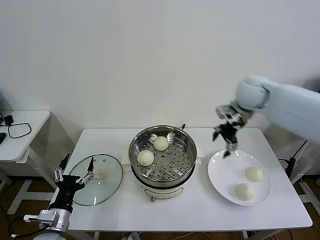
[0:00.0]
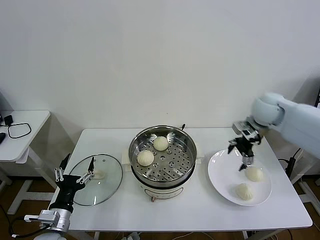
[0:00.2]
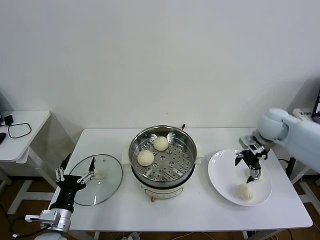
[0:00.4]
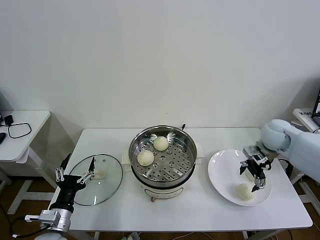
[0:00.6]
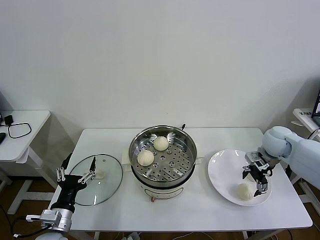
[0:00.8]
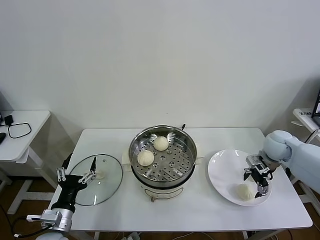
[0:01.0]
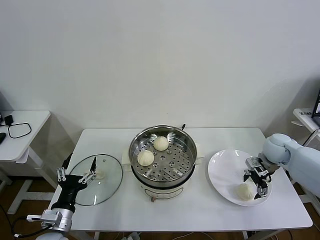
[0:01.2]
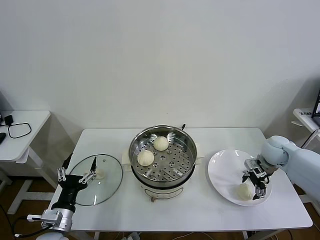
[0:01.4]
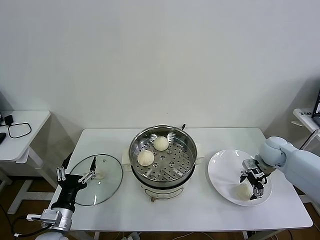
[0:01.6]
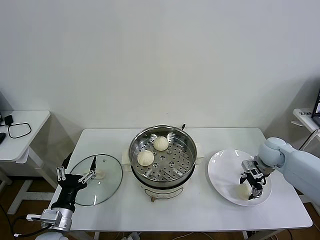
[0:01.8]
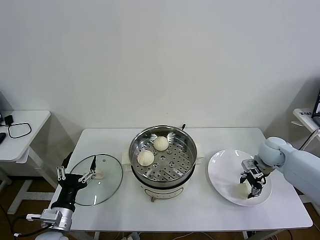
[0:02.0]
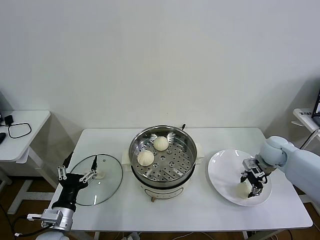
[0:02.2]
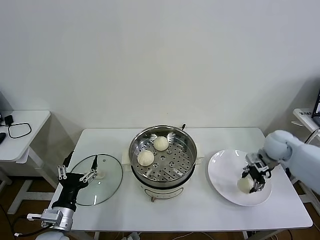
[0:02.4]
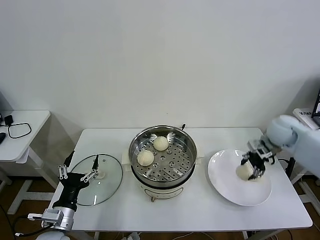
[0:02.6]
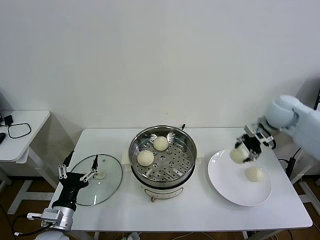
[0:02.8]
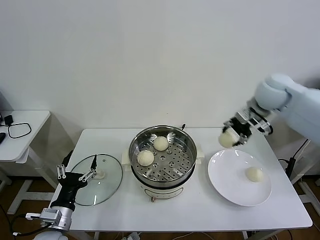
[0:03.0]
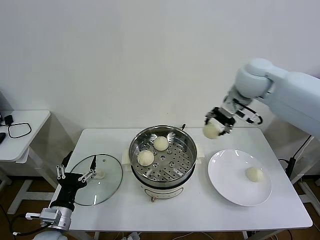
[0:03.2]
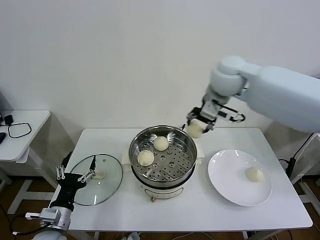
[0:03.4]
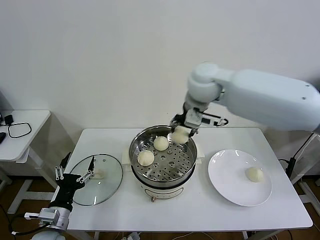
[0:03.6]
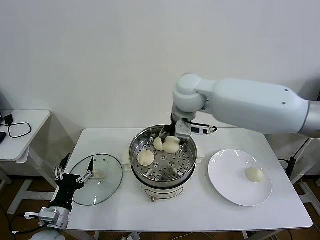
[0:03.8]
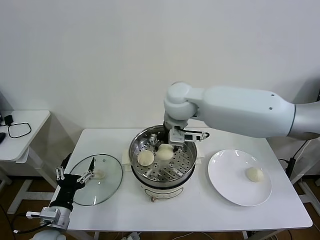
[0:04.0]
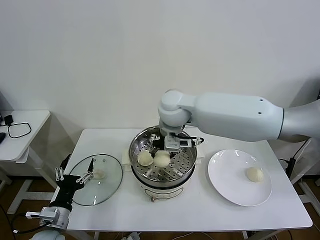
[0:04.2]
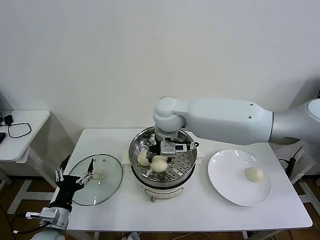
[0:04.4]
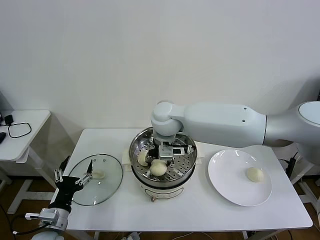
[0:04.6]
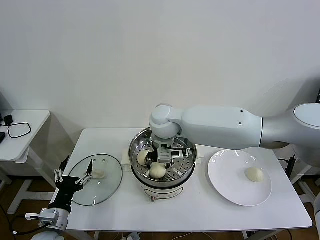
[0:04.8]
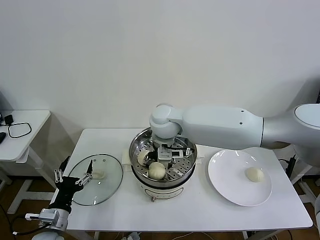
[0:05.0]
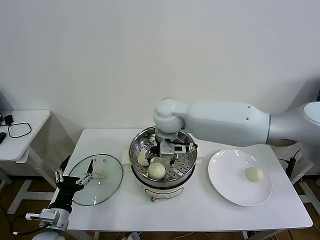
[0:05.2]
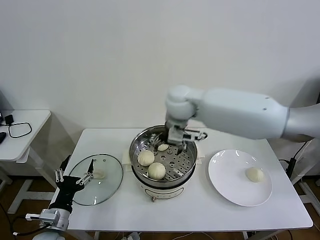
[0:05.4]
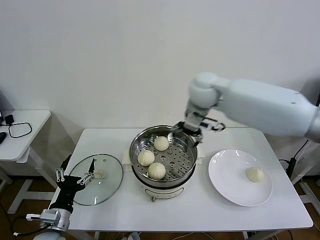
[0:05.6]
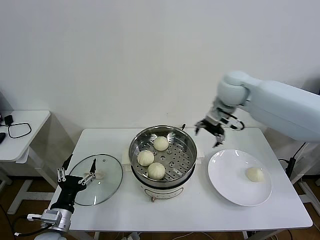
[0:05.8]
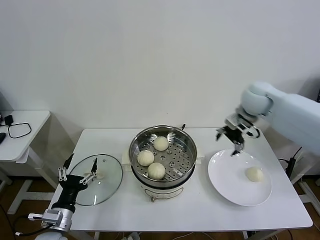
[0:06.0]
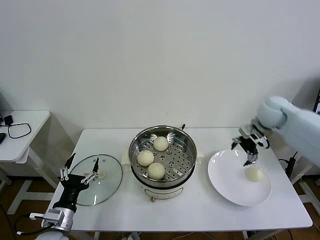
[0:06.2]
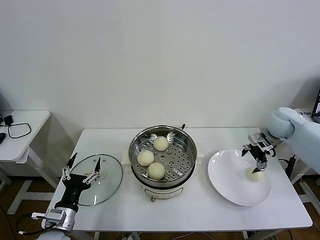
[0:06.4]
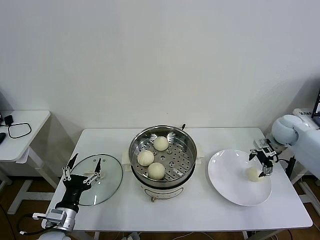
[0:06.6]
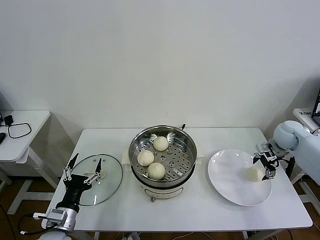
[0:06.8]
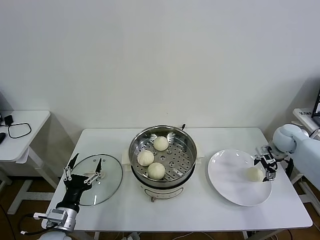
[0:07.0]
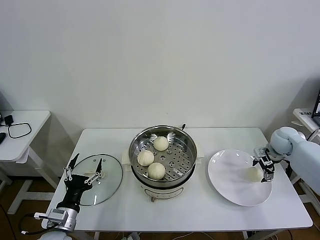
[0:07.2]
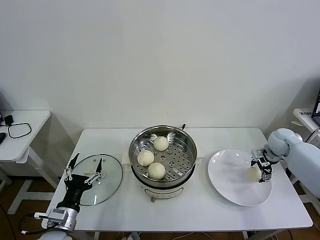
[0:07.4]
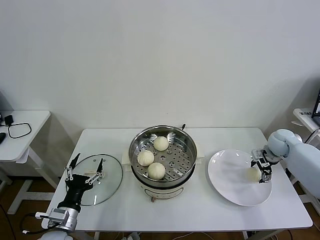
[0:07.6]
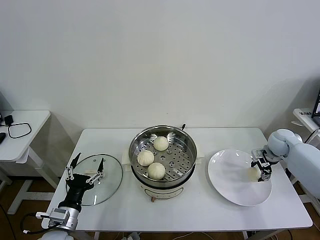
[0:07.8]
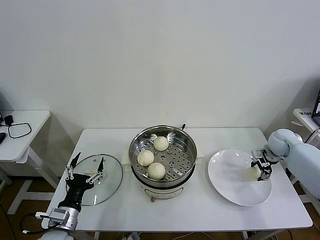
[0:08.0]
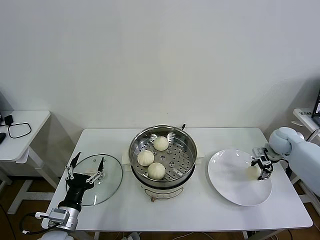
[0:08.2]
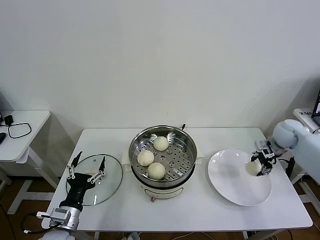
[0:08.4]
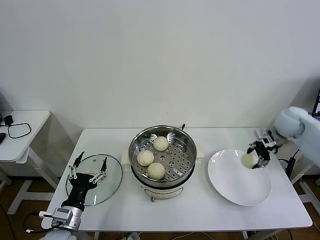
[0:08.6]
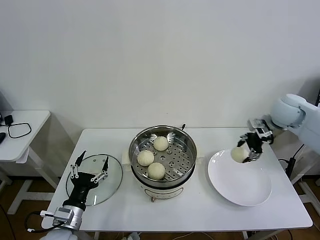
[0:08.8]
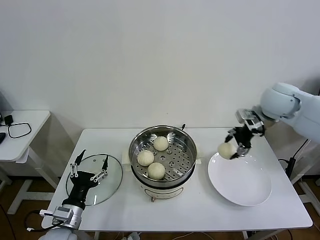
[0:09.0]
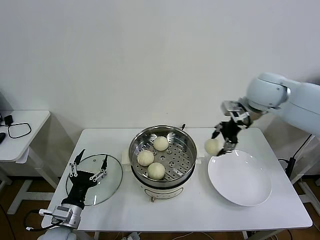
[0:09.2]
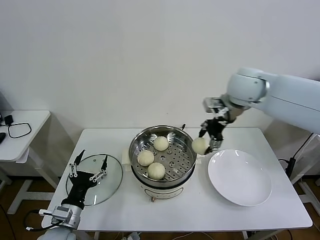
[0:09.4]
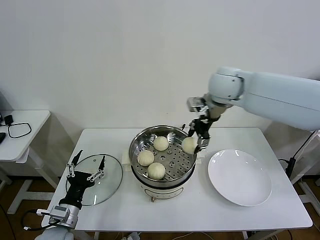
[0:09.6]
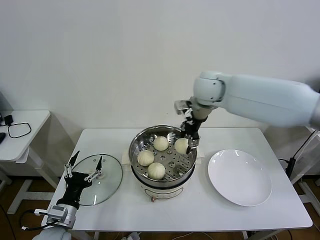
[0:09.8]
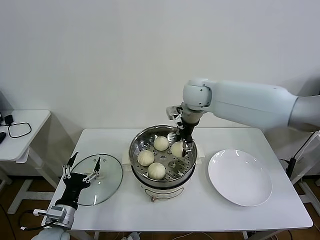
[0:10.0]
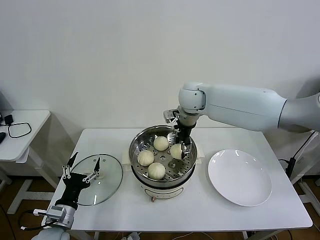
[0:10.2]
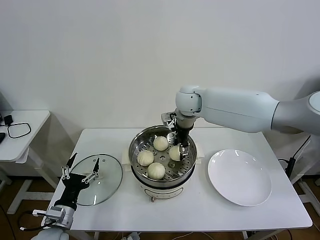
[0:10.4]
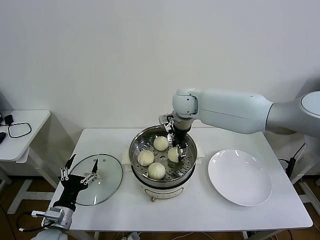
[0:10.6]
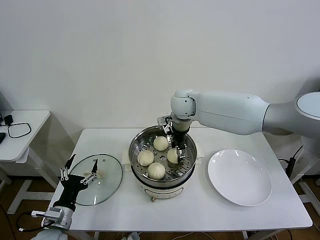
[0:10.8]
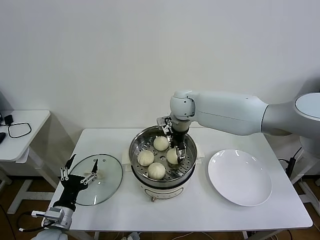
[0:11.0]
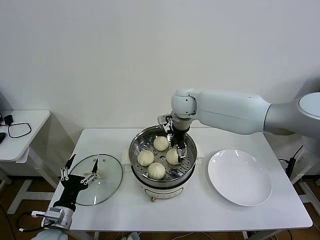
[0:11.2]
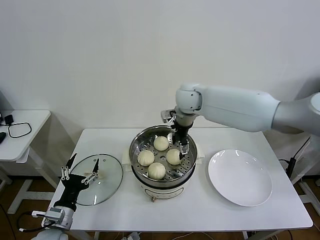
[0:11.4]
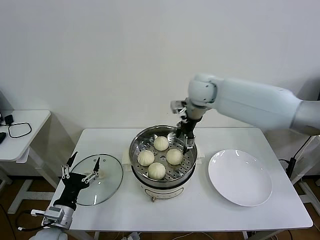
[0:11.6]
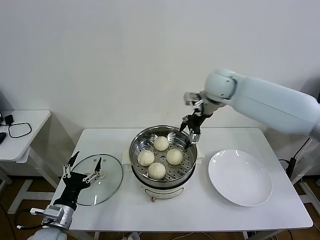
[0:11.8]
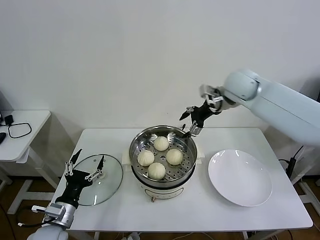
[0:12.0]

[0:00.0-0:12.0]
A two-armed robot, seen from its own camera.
Task of the whole recording: take steamed baozi put them in steamer then cover it.
Step, 0:00.0 to 0:02.0: Grasp the baozi in the plate with right gripper.
Step, 0:02.2 to 0:05.0: Place the baozi on the steamer with right gripper.
Step, 0:05.2 to 0:07.8: Grasp the baozi in the plate with right gripper.
Step, 0:08.0 to 0:11.2: Place the baozi on the steamer with right gripper.
0:00.0 to 0:01.6: The right gripper shifts about 20 cm downward and to the right.
0:01.6 to 0:03.0: The right gripper is displaced upward and to the left by approximately 25 cm, and closes its fingers.
0:03.0 to 0:04.4: The right gripper travels to the left by roughly 30 cm.
0:04.4 to 0:06.0: The right gripper shifts roughly 30 cm to the right, and opens its fingers.
0:06.0 to 0:07.6: The right gripper shifts roughly 20 cm downward and to the right.
0:07.6 to 0:09.0: The right gripper is displaced upward and to the left by approximately 25 cm, and closes its fingers.
0:09.0 to 0:10.4: The right gripper moves to the left, about 25 cm.
0:10.4 to 0:12.0: The right gripper shifts approximately 15 cm to the right and upward, and opens its fingers.

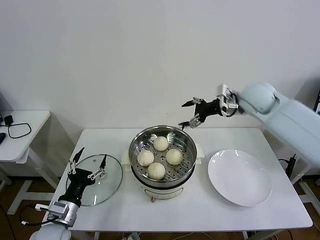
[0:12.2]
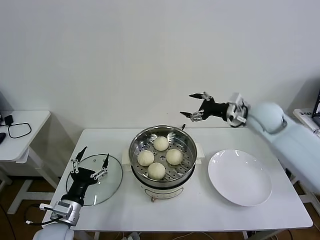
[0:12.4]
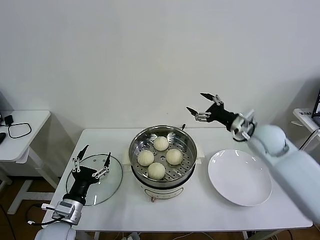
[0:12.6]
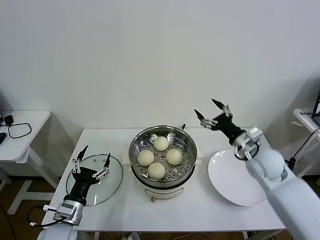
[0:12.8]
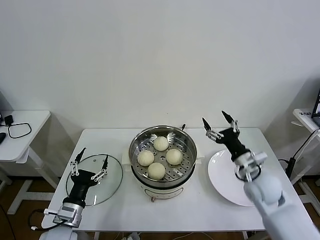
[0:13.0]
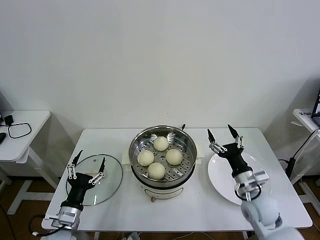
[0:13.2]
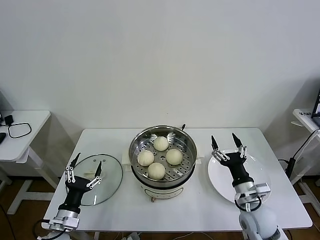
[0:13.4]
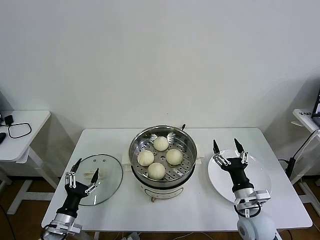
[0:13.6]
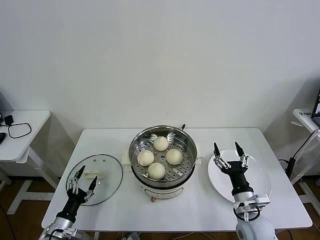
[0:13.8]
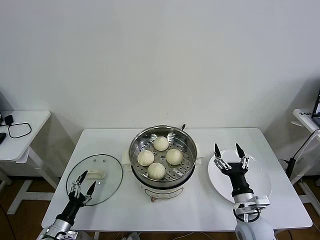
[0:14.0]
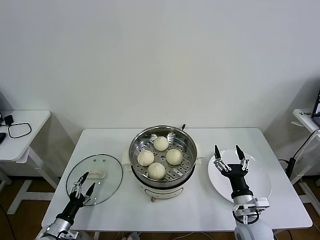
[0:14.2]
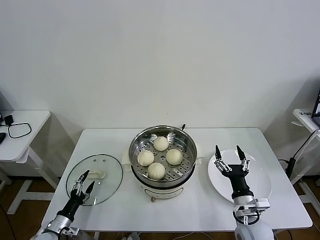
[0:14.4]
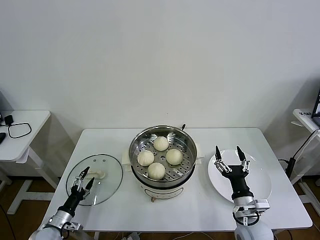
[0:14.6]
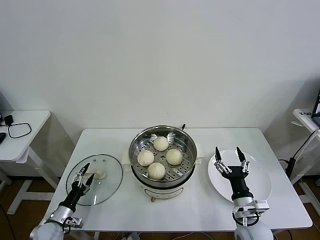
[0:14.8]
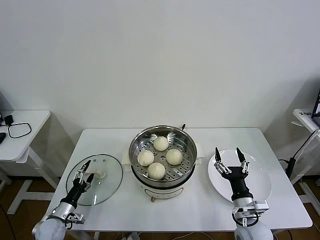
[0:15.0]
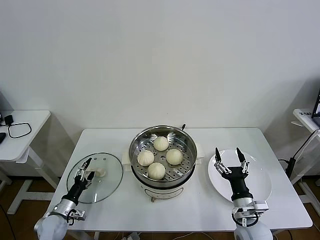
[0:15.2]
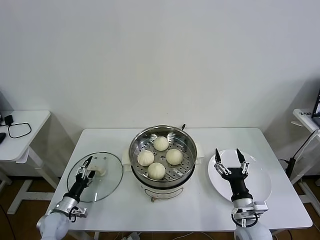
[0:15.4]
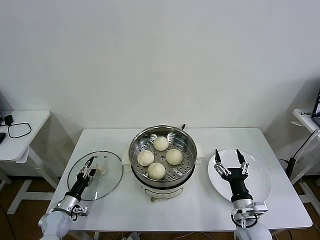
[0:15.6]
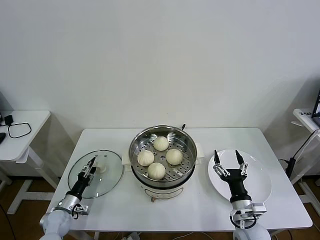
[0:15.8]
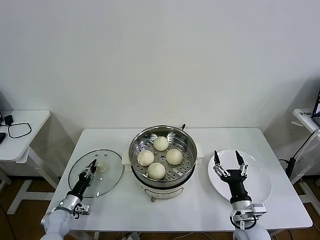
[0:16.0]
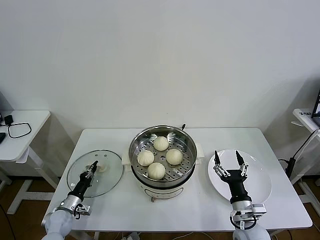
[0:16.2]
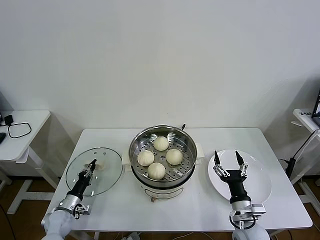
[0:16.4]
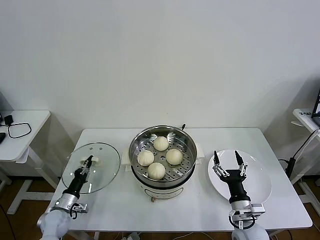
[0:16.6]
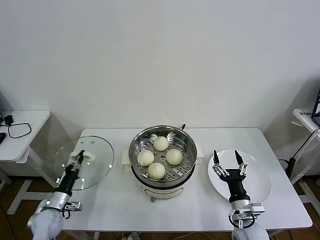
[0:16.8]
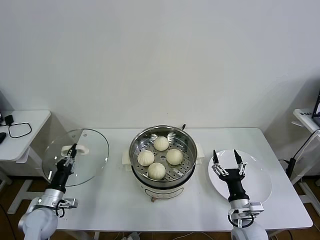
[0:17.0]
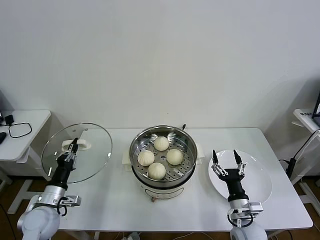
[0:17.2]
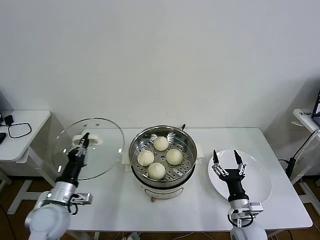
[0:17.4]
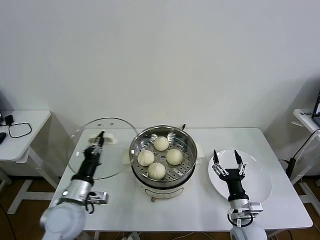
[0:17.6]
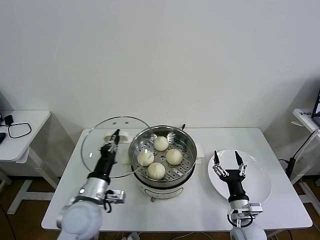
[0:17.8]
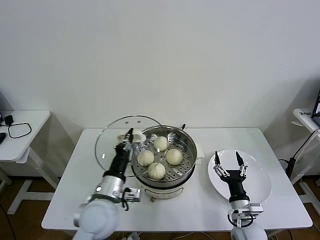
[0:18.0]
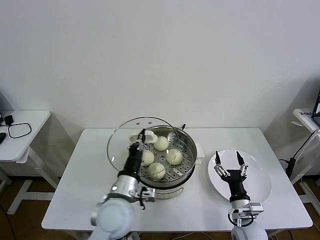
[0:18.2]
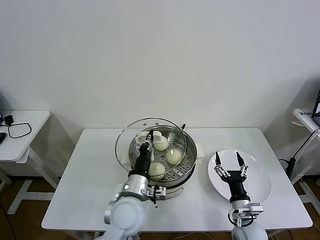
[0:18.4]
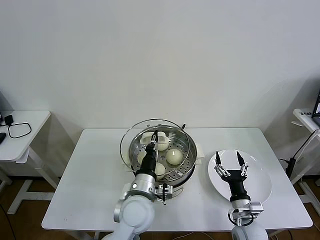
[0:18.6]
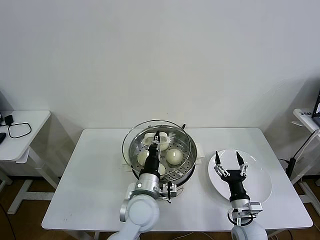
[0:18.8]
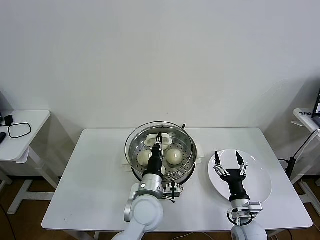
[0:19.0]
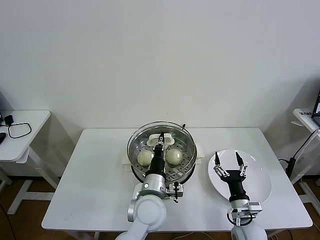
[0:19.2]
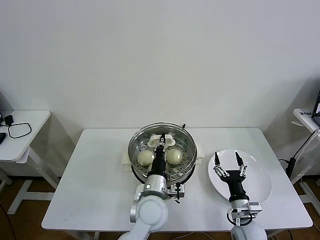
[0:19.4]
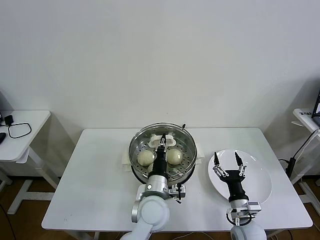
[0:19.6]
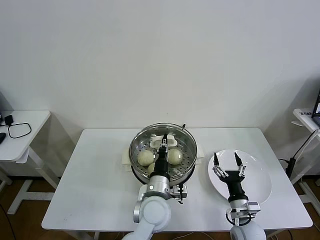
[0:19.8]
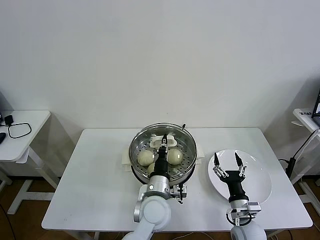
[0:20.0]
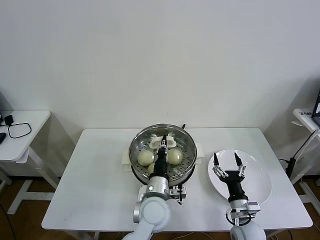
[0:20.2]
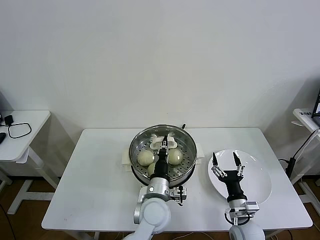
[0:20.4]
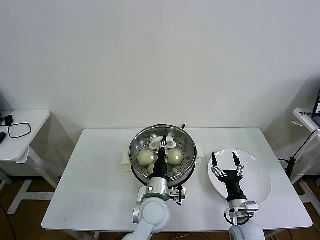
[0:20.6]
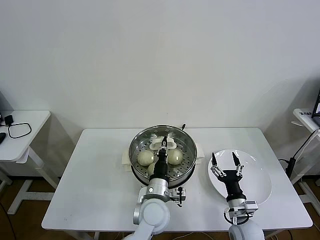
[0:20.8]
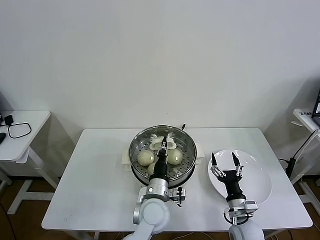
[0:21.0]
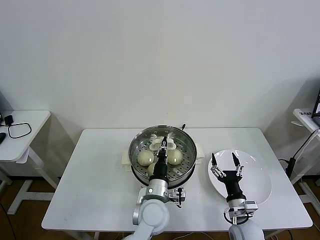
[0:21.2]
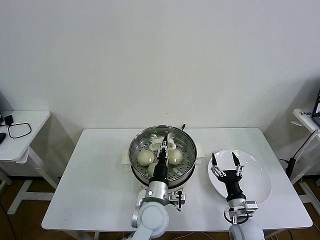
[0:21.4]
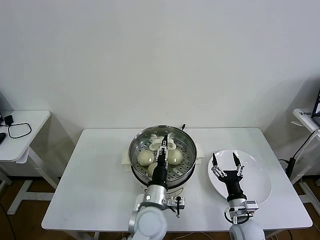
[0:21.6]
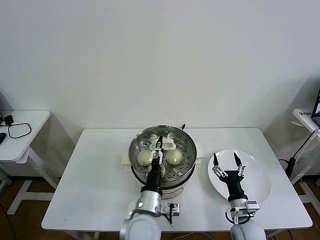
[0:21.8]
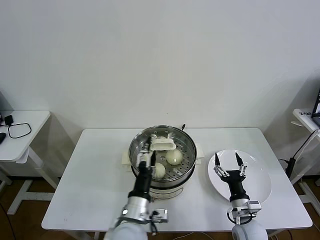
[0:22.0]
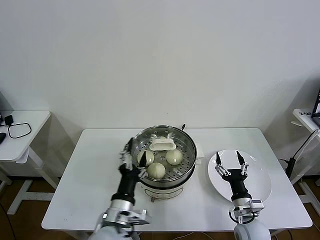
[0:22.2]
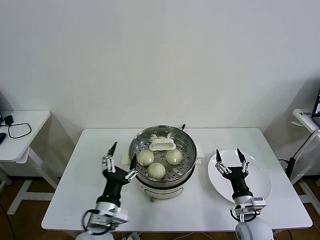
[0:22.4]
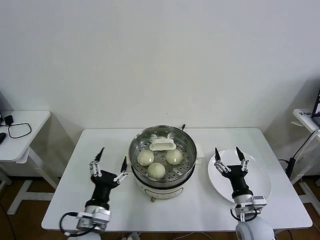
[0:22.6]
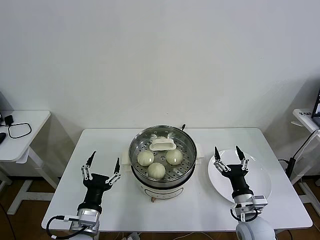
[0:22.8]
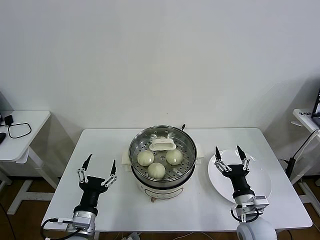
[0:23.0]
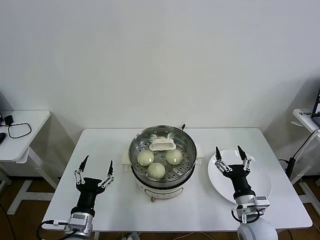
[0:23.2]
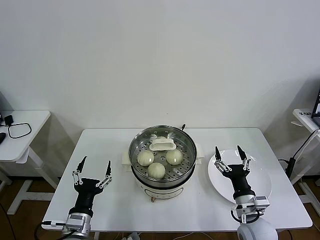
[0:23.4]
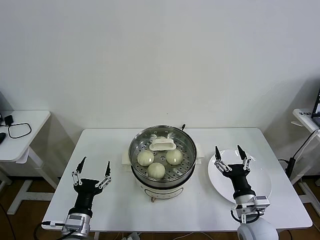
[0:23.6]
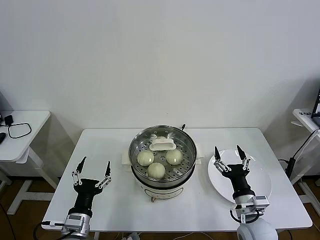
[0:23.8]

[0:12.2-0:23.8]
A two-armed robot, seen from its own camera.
Task of the whole recording: take steamed baozi put them in steamer then cover it.
Step, 0:12.2 to 0:16.4: Grasp the pot lid with left gripper.
Step, 0:16.6 to 0:21.4: Place the pot lid on the steamer with left gripper.
0:12.2 to 0:13.6: The right gripper travels backward and downward by approximately 40 cm; the left gripper moves downward, roughly 10 cm.
0:13.6 to 0:15.0: The left gripper goes some 10 cm downward, to the left and forward.
0:15.0 to 0:16.6: The left gripper closes its fingers.
0:16.6 to 0:18.0: The left gripper goes approximately 30 cm upward and to the right.
0:18.0 to 0:19.4: The left gripper goes approximately 15 cm to the right.
0:19.4 to 0:21.0: There are only small adjustments of the grippers.
0:21.0 to 0:22.4: The left gripper is displaced to the left and backward by roughly 15 cm, and opens.
0:22.4 to 0:23.8: The left gripper shifts some 10 cm to the left. The right gripper travels upward by approximately 5 cm.
